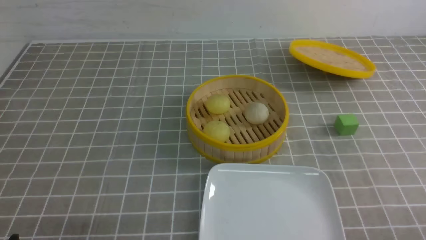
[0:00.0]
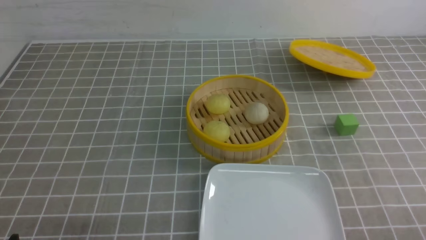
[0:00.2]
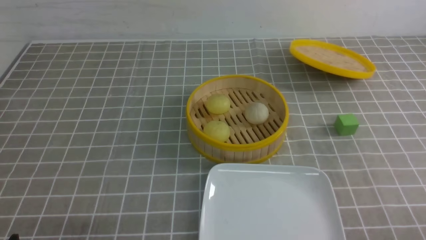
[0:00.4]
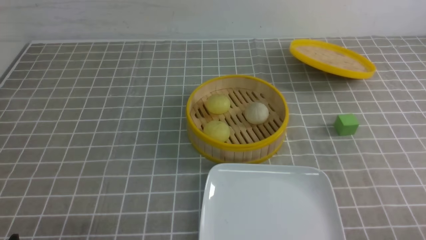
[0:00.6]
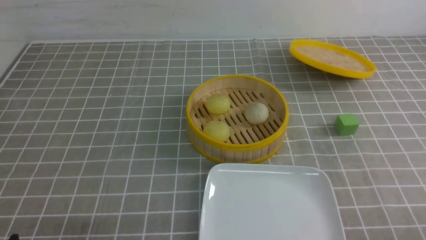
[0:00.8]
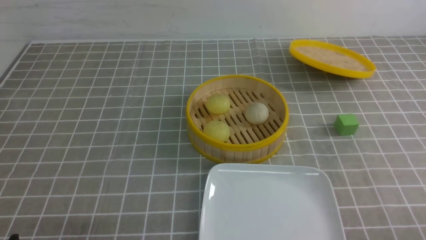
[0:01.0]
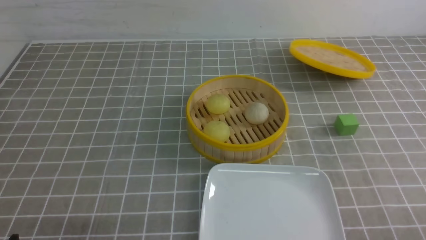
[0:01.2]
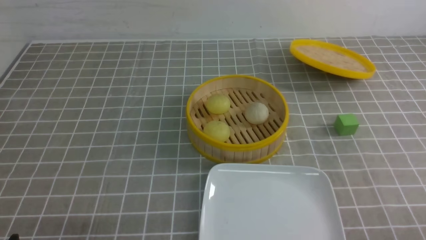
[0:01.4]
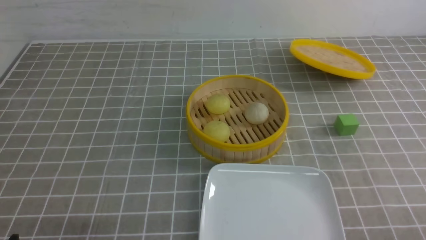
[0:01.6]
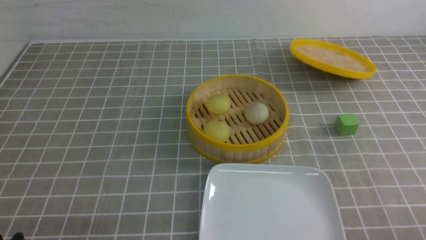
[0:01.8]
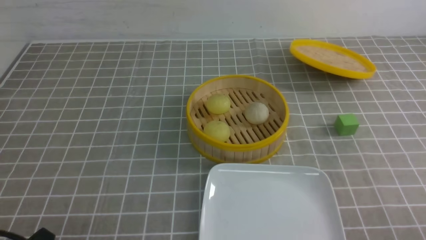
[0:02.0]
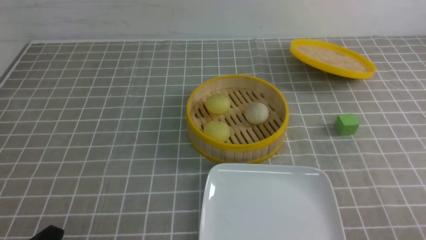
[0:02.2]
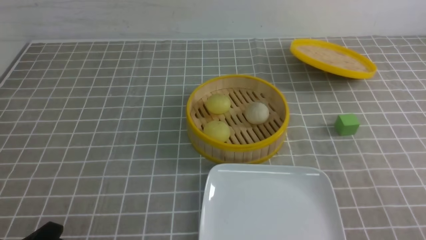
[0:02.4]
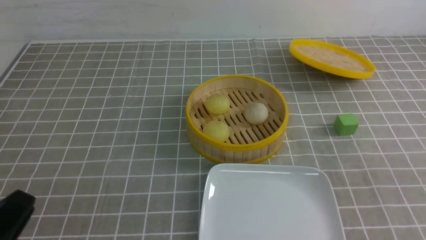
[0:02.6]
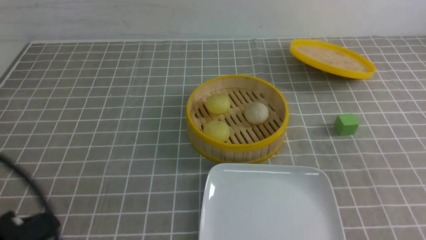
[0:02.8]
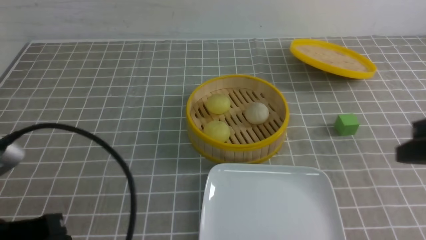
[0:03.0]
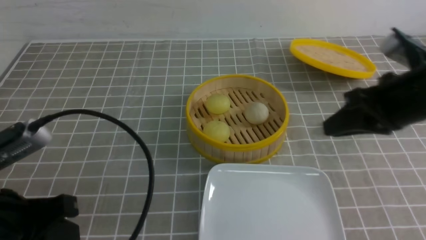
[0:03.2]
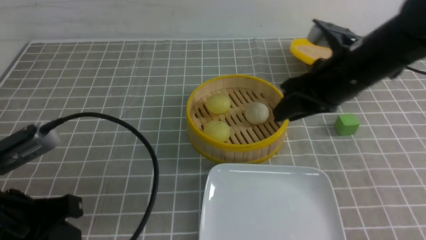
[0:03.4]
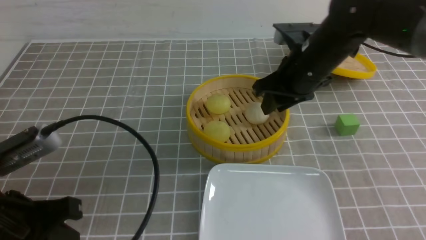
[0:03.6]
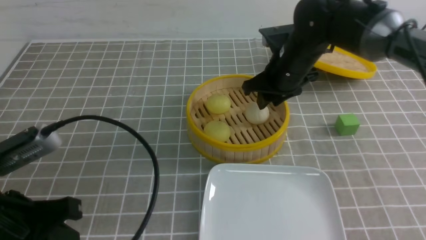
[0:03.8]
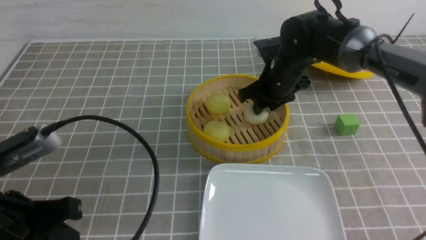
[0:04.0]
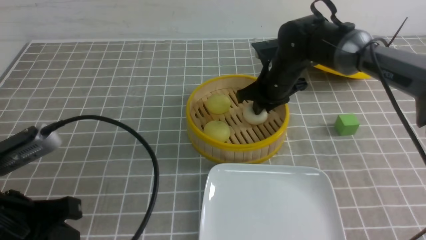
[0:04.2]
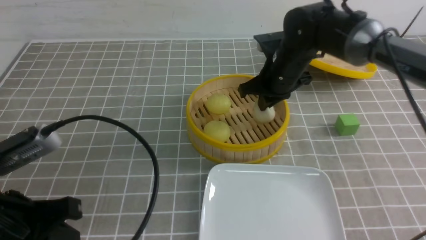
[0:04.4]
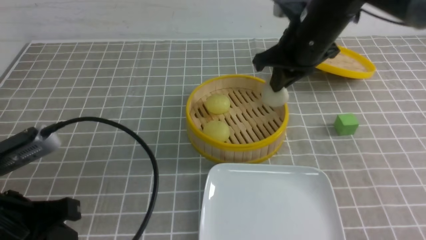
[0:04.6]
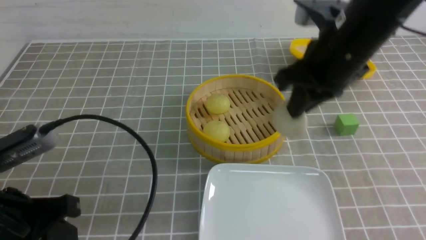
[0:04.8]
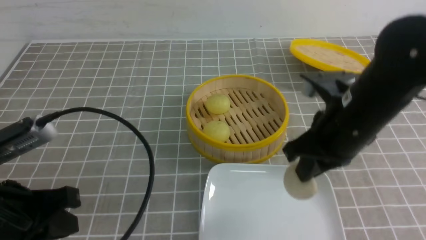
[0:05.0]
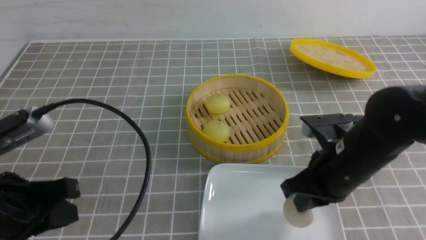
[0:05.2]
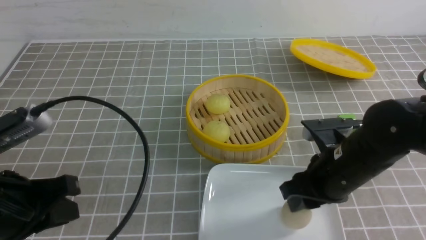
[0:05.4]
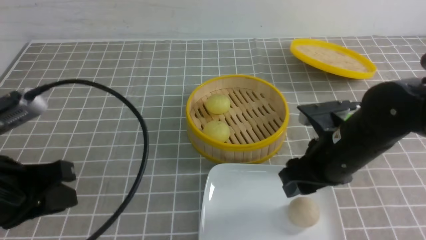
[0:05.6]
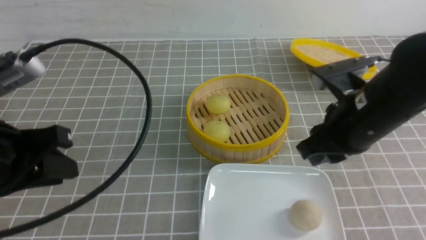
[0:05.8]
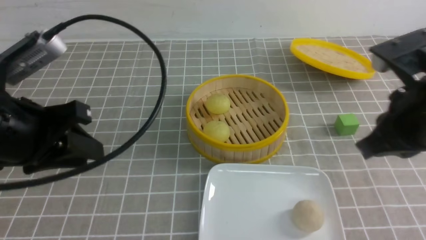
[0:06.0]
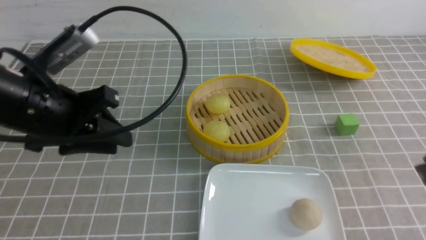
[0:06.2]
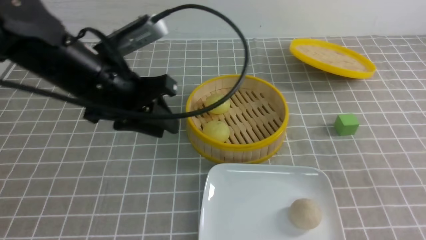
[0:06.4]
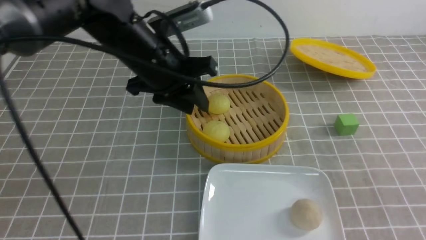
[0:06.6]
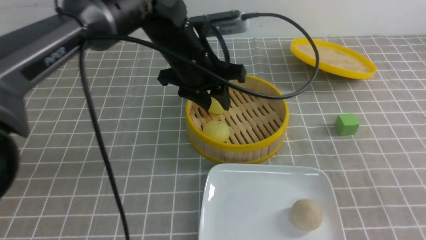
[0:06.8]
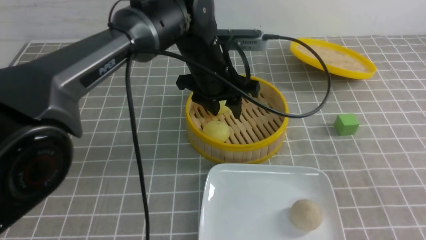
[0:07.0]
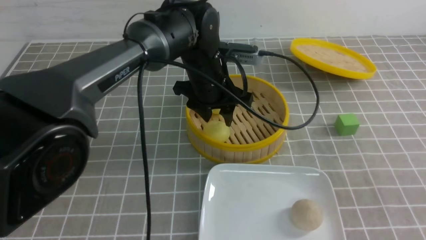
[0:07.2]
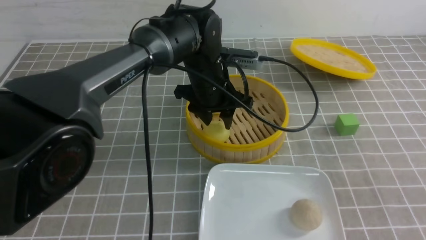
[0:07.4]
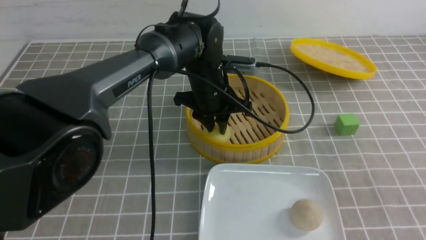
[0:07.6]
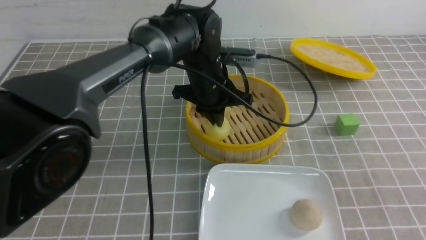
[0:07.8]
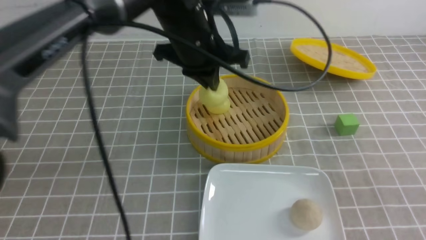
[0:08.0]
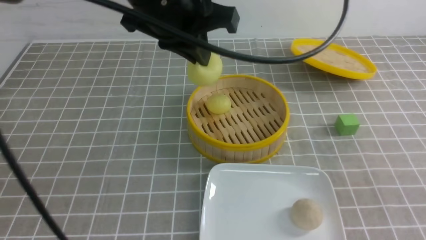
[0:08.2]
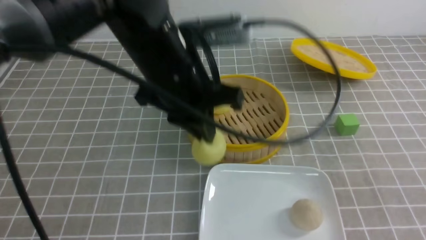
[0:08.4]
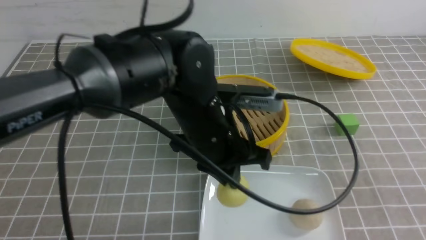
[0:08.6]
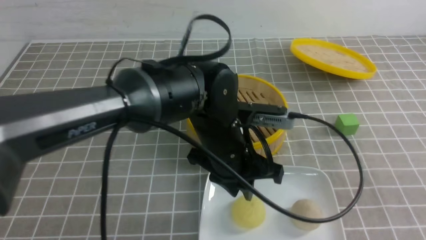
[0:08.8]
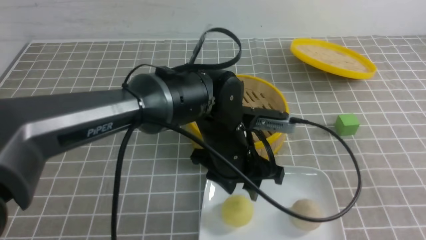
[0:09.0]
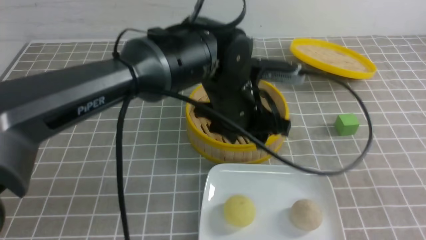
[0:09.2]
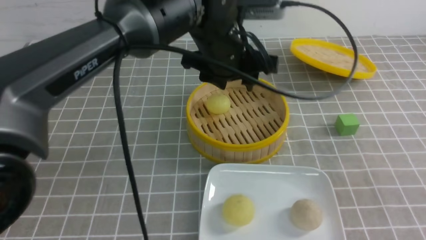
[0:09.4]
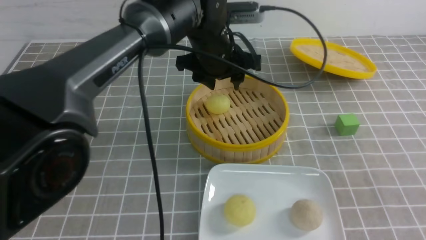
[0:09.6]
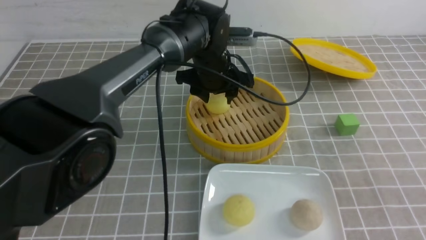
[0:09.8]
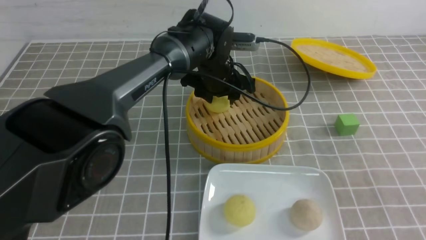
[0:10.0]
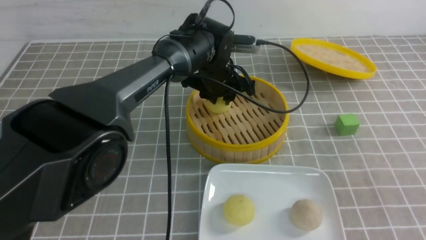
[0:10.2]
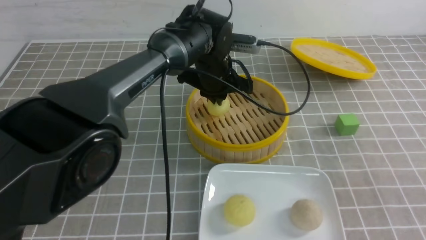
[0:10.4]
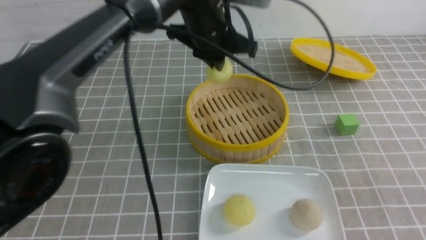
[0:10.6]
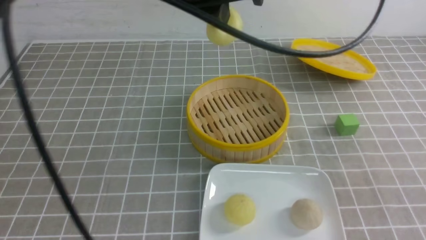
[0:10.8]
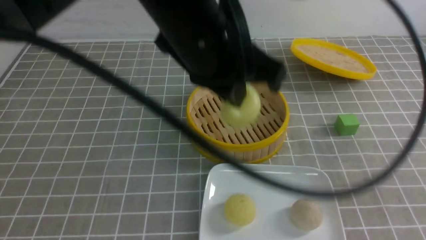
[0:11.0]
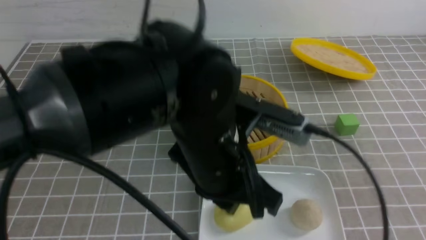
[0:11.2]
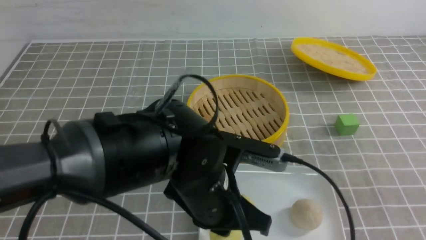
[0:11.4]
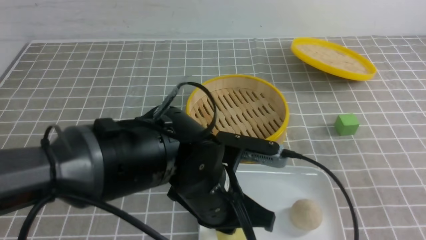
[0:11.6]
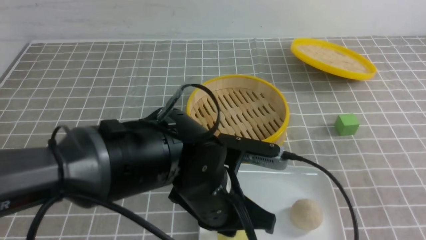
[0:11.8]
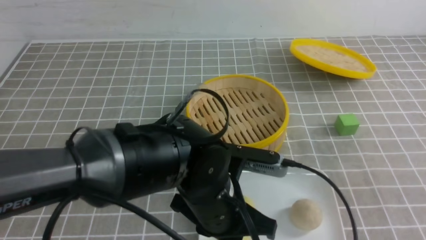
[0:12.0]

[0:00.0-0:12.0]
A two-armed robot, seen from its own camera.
Step, 0:00.0 to 0:04.4: use the right arm to grab the steamed stuffed bun that is closest to it.
Step, 0:04.6 to 0:05.4: use the right arm to put the steamed stuffed bun into the plate.
Step, 0:05.6 to 0:07.8: use the left arm to grab the steamed stuffed bun that is closest to it.
Step, 0:08.0 to 0:08.8: use the left arm to put the steamed stuffed bun into the plate.
Step, 0:09.0 to 0:10.4: use the left arm to grab the steamed stuffed bun that is closest to it.
0:00.0 to 0:01.6: Neither gripper changes place.
0:01.6 to 0:03.0: The right gripper travels upward and forward by some 20 cm, and closes up. Meanwhile the left gripper travels upward by roughly 10 cm, and closes up.
0:03.0 to 0:04.4: The right gripper shifts about 25 cm forward and to the left, and opens, then closes again.
0:04.4 to 0:06.0: The right gripper goes roughly 25 cm backward and to the right, and opens, then closes again. Meanwhile the left gripper goes roughly 10 cm forward and upward, and opens up.
0:06.0 to 0:07.6: The right gripper goes approximately 15 cm backward, to the right and downward, while the left gripper moves to the right, forward and downward, approximately 30 cm, and opens, then closes once more.
0:07.6 to 0:09.0: The left gripper goes some 10 cm backward, travels upward and back again, some 15 cm each way, and opens up.
0:09.0 to 0:10.4: The left gripper travels forward by approximately 15 cm, and closes.
0:10.4 to 0:12.0: The left gripper heads backward, covering roughly 25 cm. The right gripper moves about 5 cm.

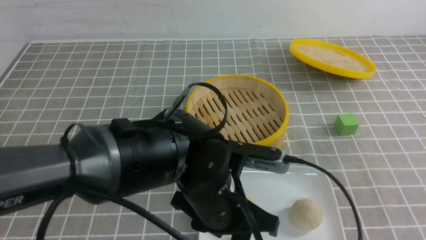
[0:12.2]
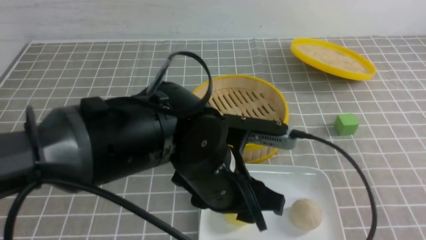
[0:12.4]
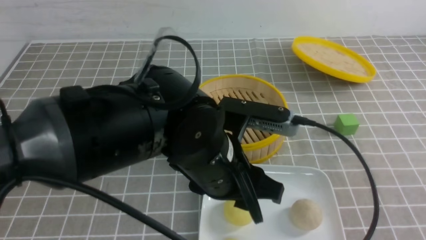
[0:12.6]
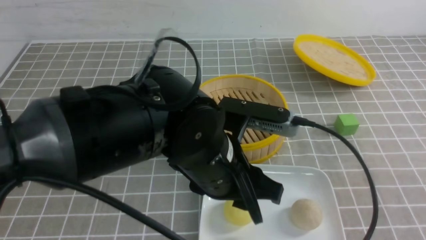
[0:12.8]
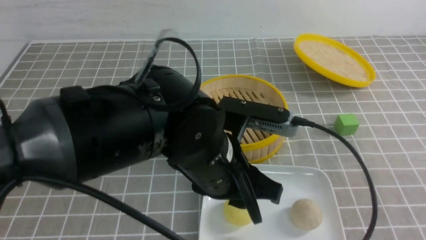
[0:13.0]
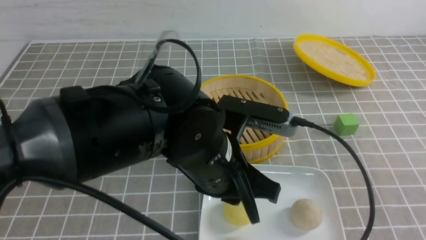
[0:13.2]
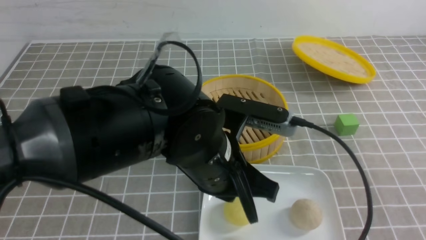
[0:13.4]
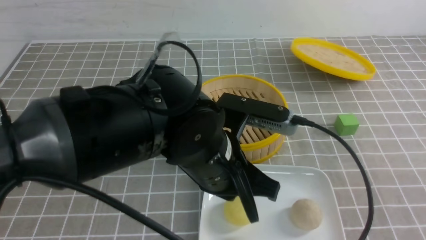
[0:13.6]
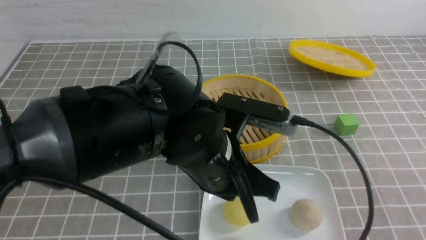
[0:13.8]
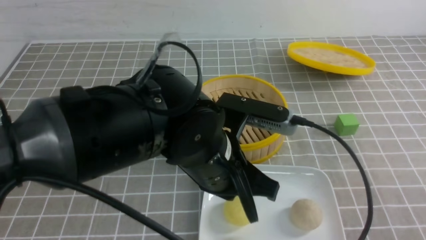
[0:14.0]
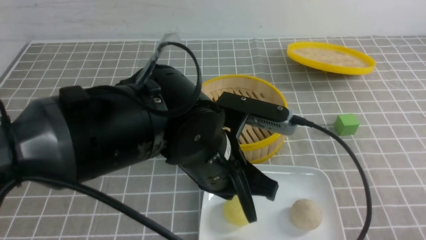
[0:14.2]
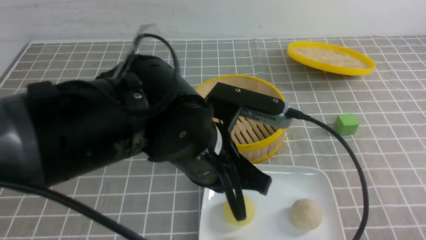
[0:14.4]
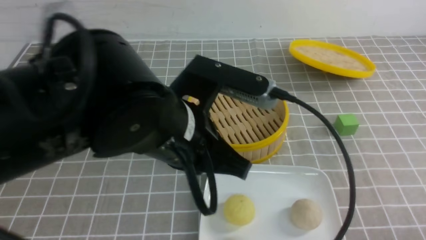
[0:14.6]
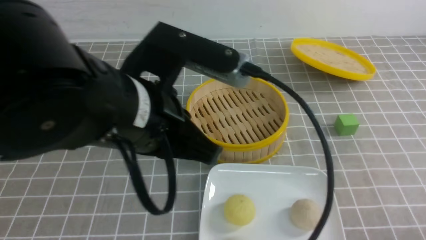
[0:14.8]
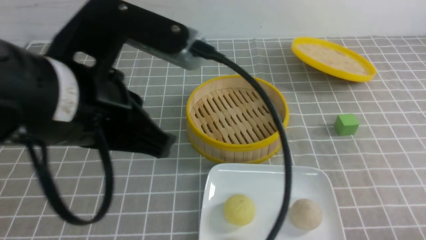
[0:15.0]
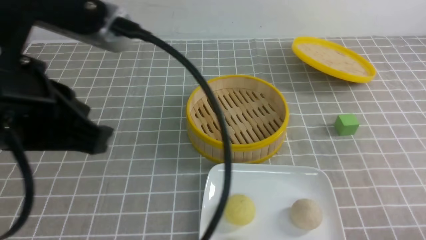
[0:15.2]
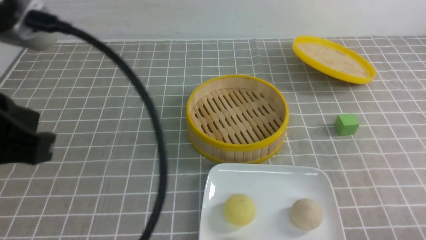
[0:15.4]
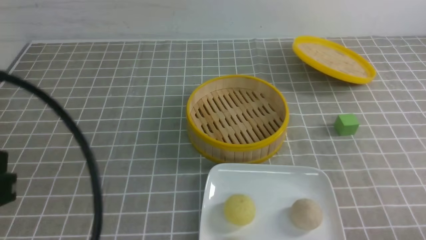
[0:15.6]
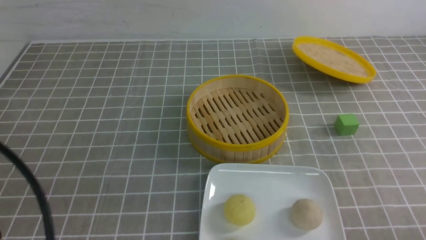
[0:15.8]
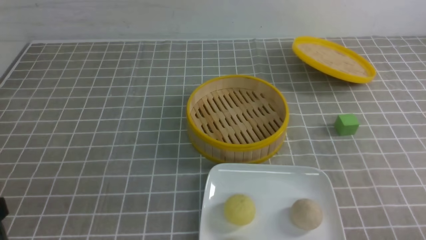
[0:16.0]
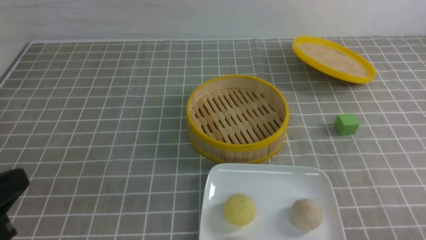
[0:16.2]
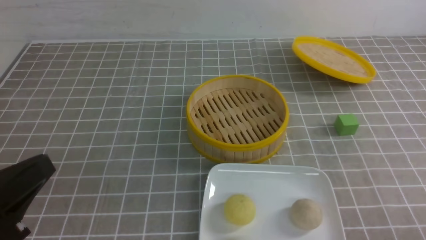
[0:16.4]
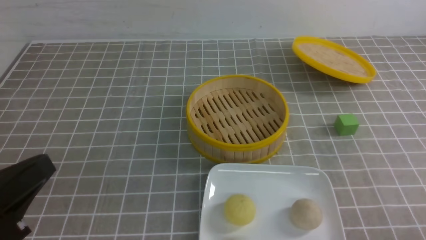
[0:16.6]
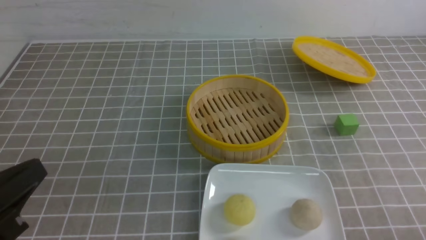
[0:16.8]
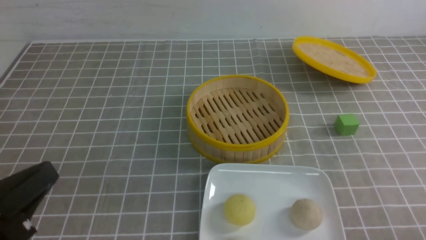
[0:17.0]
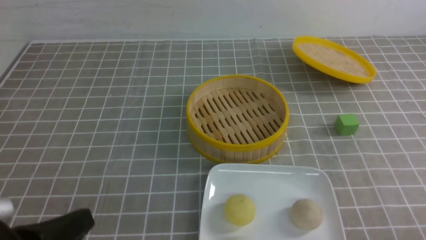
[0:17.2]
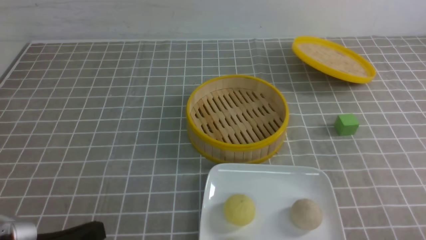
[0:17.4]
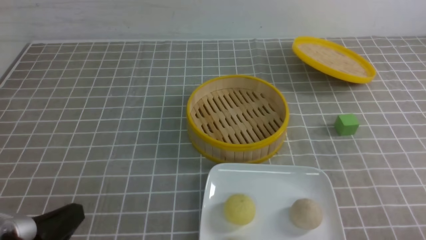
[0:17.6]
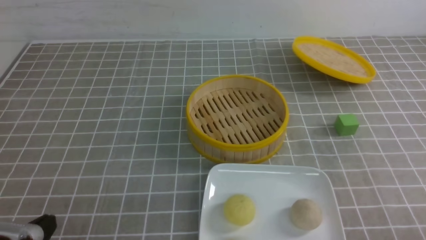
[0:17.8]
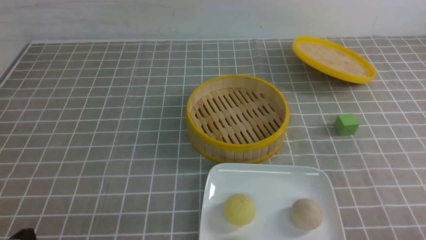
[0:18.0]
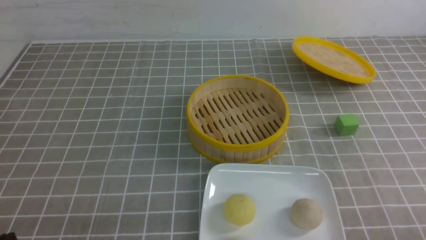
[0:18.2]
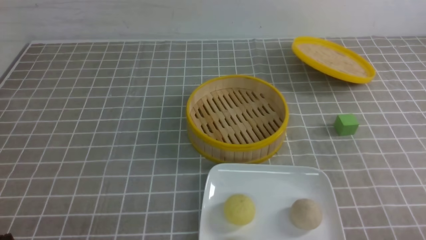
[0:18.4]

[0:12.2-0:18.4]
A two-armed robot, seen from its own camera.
0:12.2 to 0:13.8: The left gripper closes its fingers. The right gripper moves downward, some 5 cm.
0:13.8 to 0:15.4: The right gripper goes some 10 cm downward. The left gripper heads to the left, upward and backward, covering roughly 25 cm.
0:15.4 to 0:16.8: The left gripper is displaced downward by roughly 10 cm.
0:16.8 to 0:18.4: The left gripper is displaced downward by about 10 cm.
